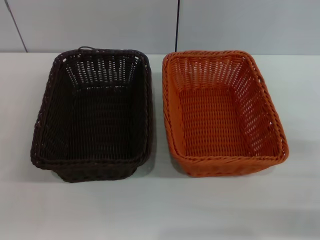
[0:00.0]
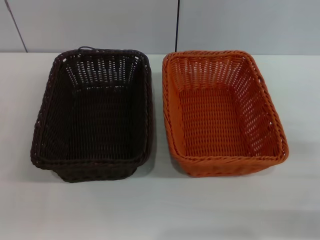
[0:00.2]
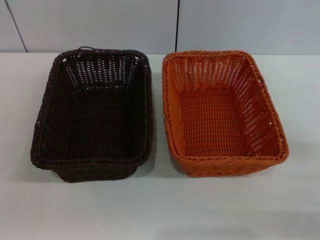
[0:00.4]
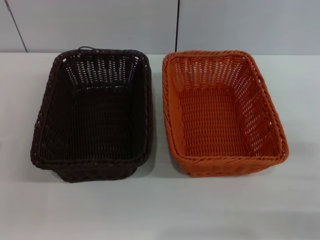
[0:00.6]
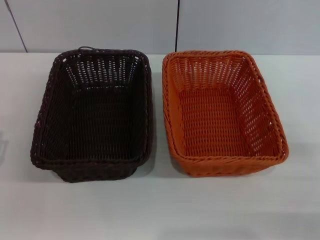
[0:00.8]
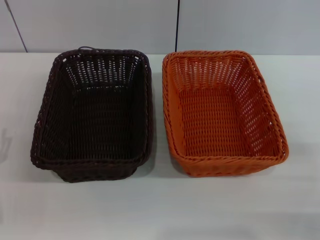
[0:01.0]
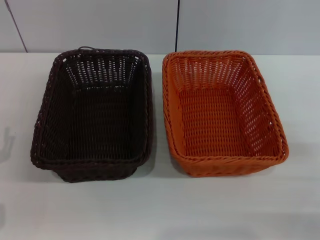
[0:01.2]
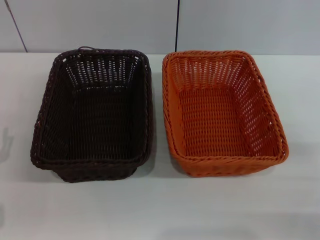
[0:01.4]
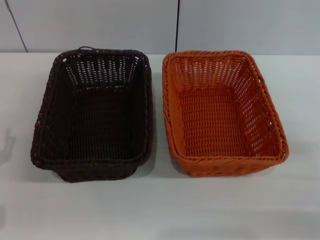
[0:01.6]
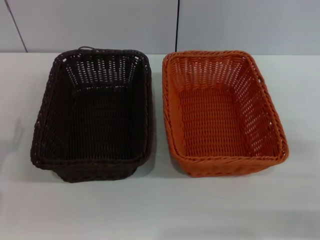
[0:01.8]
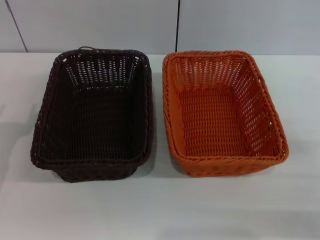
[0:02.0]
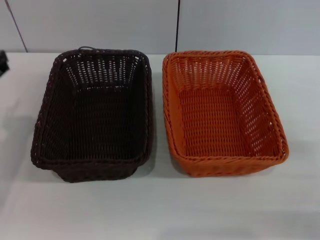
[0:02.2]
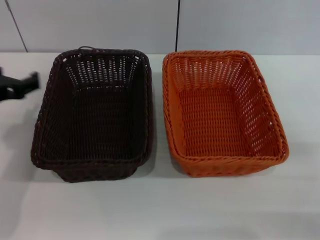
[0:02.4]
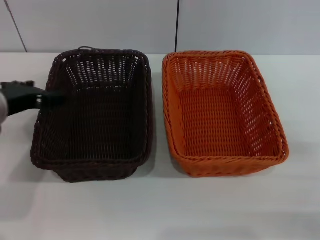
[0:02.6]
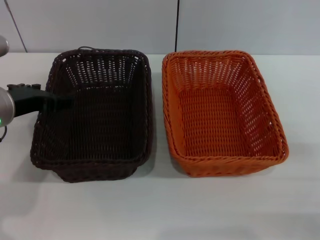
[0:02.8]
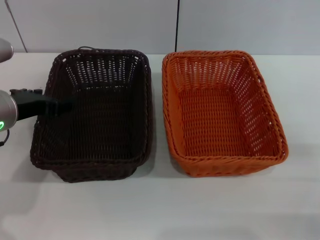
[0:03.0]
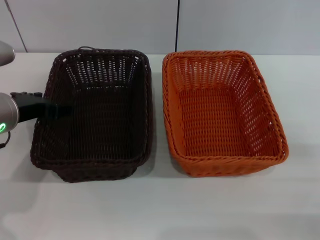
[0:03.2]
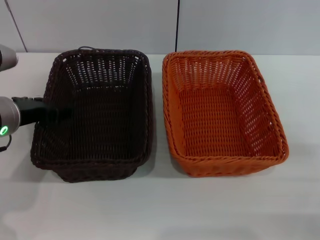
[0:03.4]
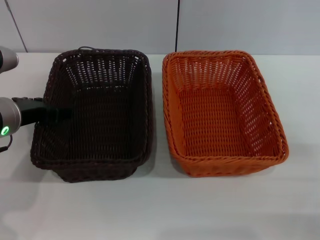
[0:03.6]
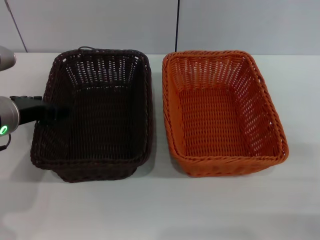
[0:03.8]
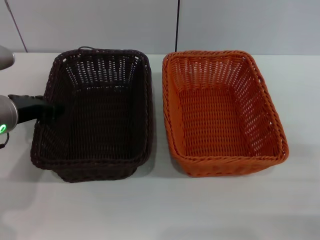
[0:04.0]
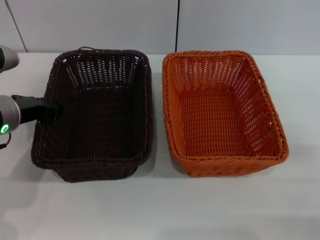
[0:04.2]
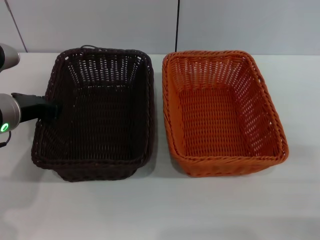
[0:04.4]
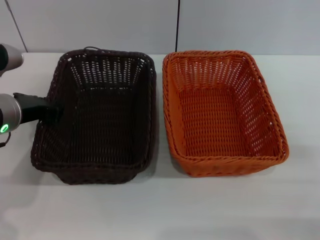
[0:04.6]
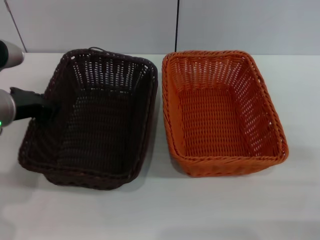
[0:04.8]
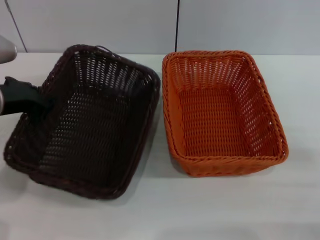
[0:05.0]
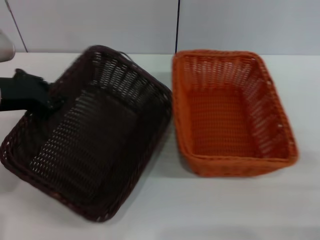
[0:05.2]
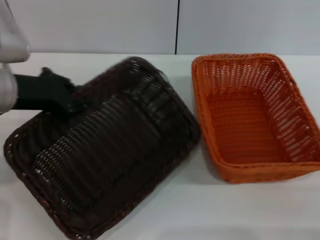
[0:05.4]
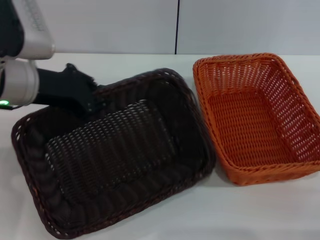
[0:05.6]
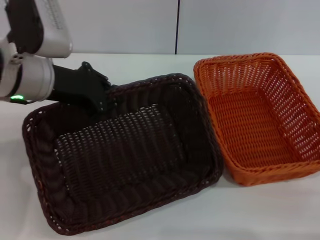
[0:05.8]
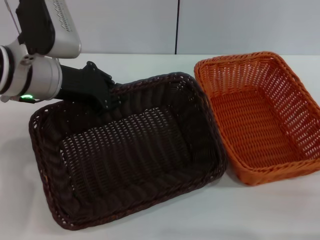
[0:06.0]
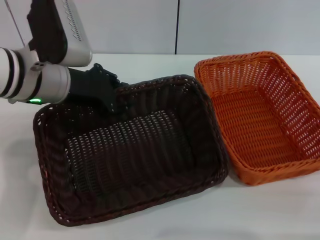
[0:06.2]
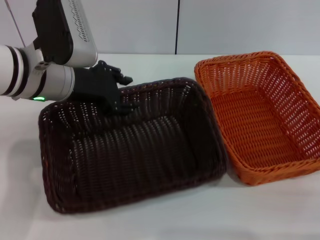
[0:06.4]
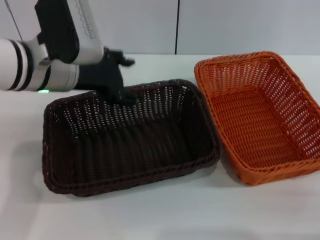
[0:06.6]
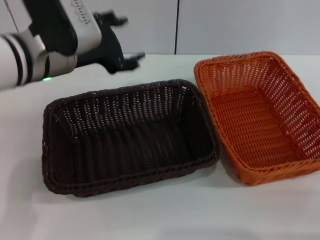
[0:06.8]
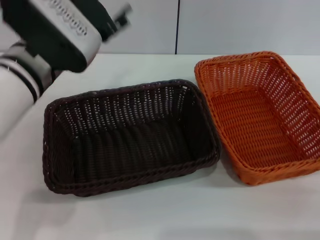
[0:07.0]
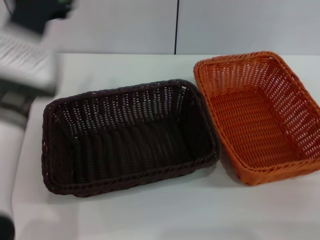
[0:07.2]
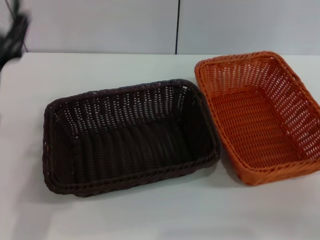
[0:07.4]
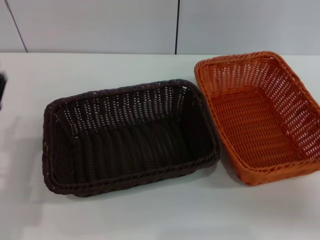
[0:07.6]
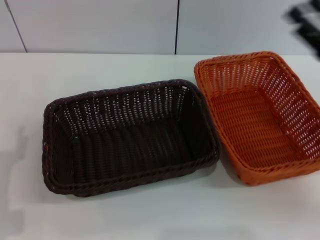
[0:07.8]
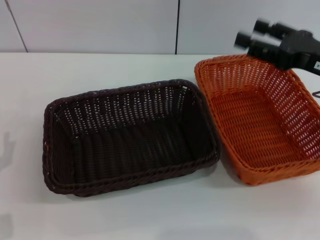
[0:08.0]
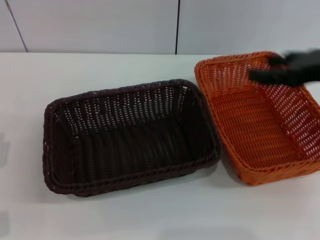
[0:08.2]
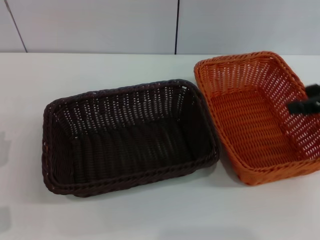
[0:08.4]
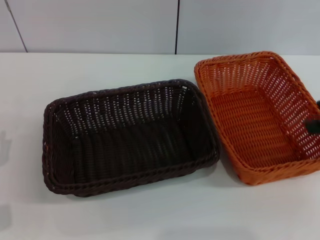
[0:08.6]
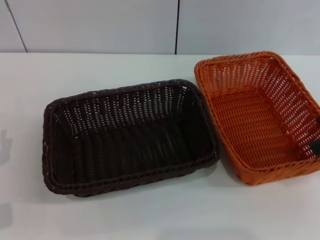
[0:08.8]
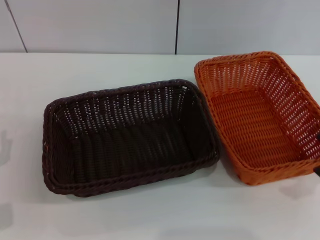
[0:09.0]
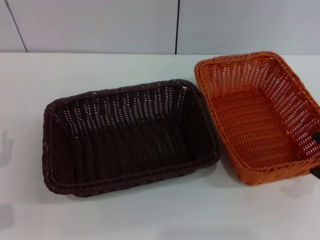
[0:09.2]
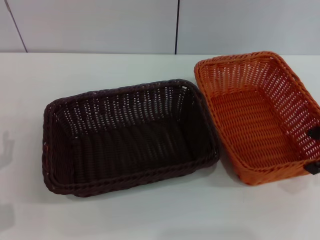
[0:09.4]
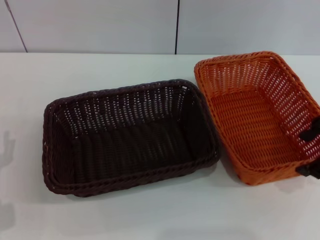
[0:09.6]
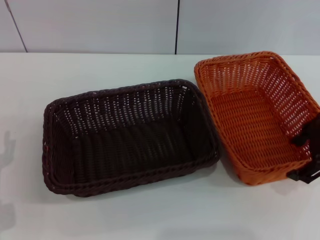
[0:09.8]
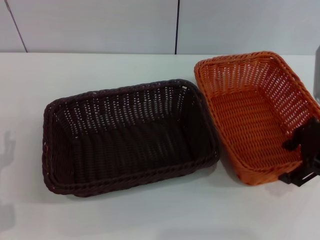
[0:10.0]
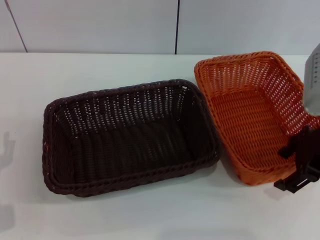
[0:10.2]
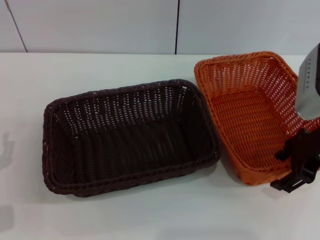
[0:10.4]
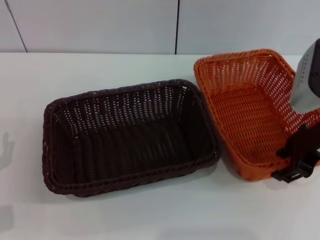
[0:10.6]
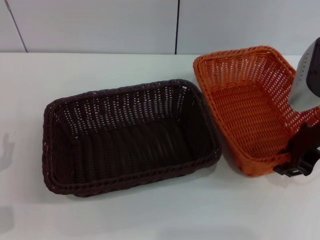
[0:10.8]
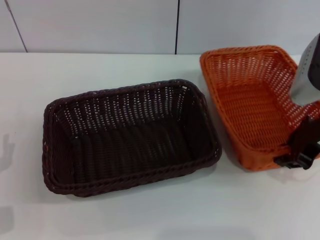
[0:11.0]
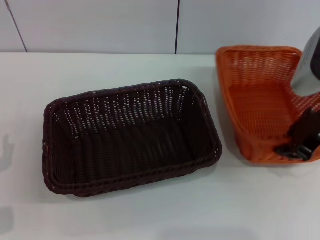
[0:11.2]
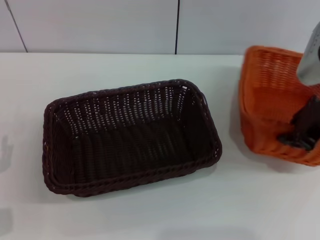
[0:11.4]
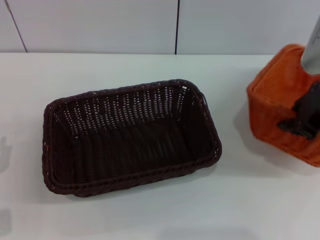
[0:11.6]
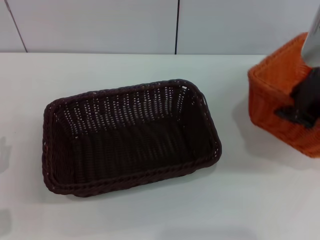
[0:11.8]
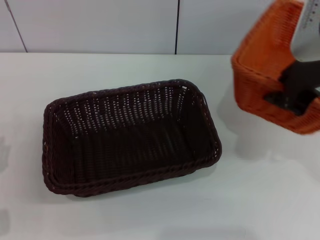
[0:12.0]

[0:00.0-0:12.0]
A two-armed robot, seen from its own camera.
Step, 0.0 to 5.0 s: Pick up the dark basket with the left gripper.
Step, 5.2 to 6.4 s: Place the dark basket in the center of view with the left gripper.
Step, 6.6 to 11.2 s: Pick up the light basket with the right gripper.
1.6 to 3.0 s: The left gripper travels upward, forward and to the right by approximately 20 cm.
3.0 to 4.4 s: The left gripper closes.
4.4 to 6.0 s: The left gripper moves upward, approximately 5 cm.
6.0 to 7.6 s: The left gripper goes approximately 20 cm backward, downward and to the left, and opens its fingers. The right gripper moves forward and upward, some 10 cm.
7.6 to 9.0 s: The right gripper shifts about 15 cm upward.
9.0 to 10.4 s: The right gripper shifts approximately 10 cm downward and to the left.
10.4 to 12.0 s: The right gripper heads upward, covering roughly 10 cm, and closes up.

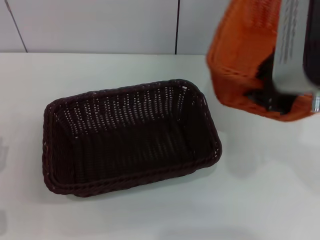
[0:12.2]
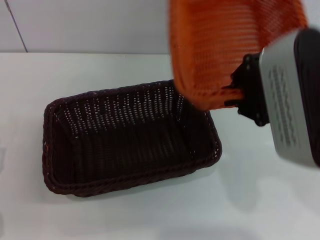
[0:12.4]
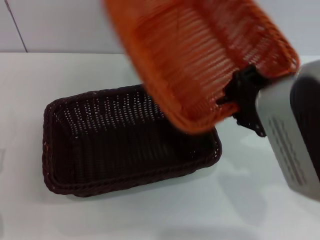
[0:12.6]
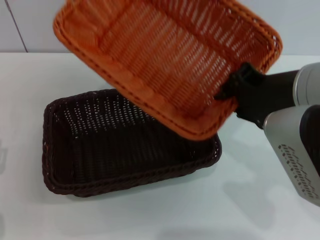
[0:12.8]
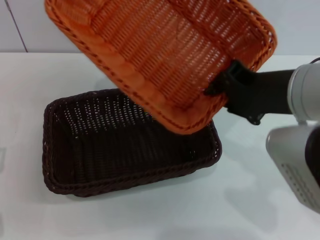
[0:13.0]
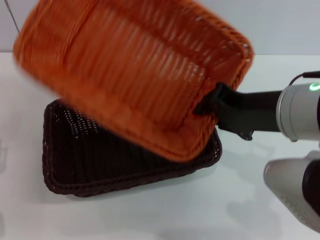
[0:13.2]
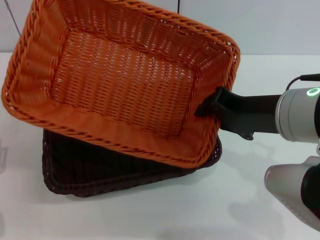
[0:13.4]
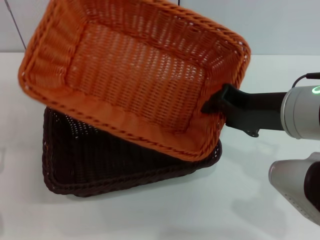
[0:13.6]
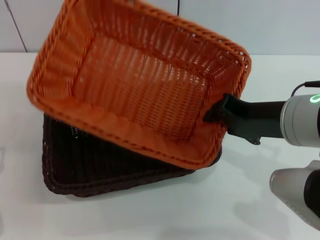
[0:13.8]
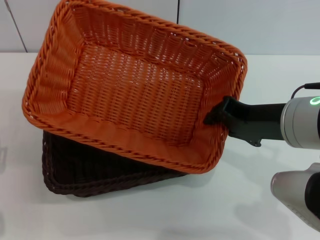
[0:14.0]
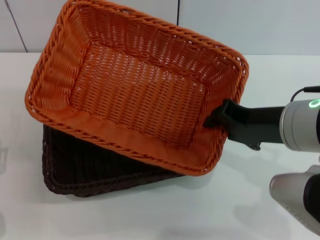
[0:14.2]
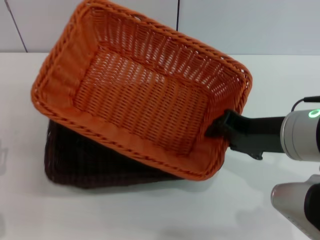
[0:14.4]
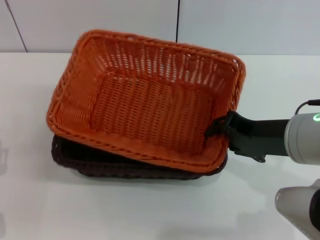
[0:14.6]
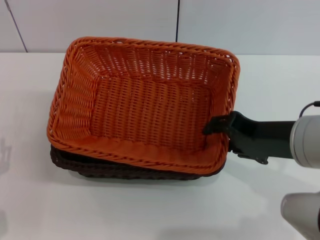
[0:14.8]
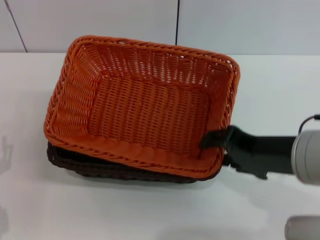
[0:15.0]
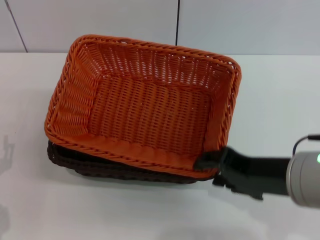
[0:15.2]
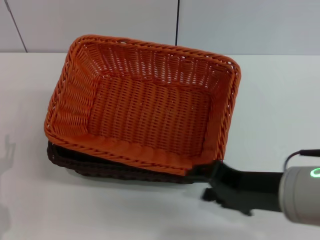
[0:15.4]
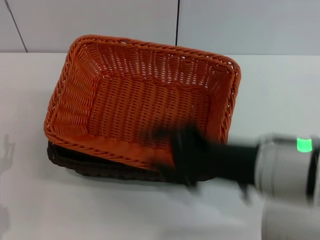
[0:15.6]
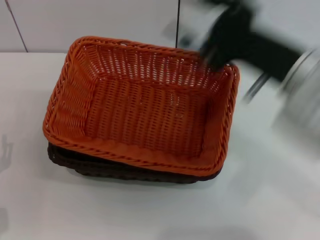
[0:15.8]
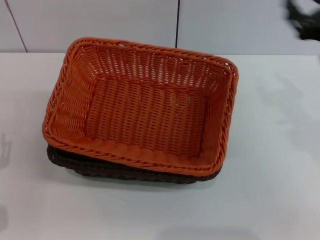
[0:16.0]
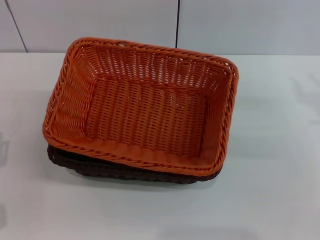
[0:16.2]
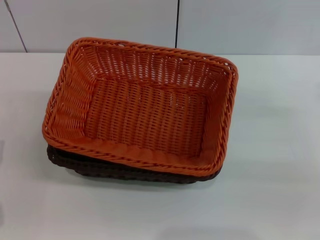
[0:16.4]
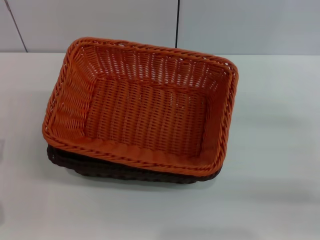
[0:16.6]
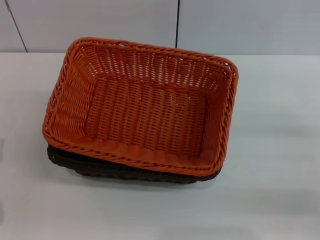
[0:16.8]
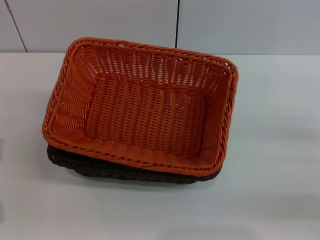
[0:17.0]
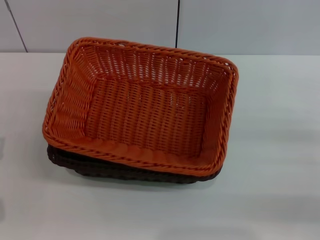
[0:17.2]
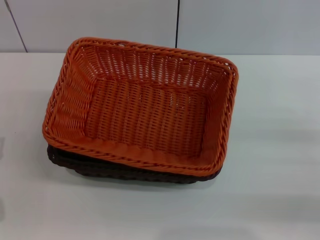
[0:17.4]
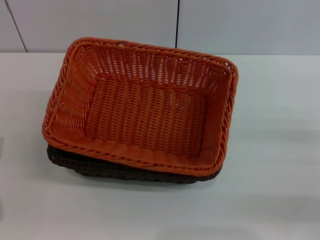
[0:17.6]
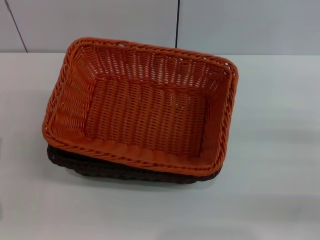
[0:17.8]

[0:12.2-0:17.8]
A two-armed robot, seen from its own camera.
Step, 12.2 to 15.0 s: Place the light basket on the dark basket with the right gripper.
12.2 to 13.6 s: The right gripper is displaced downward by approximately 5 cm.
13.6 to 15.0 s: The right gripper opens up.
15.0 to 16.4 s: The right gripper moves to the right and downward, some 20 cm.
16.4 to 17.8 s: The right gripper ends up some 5 cm from where it was.

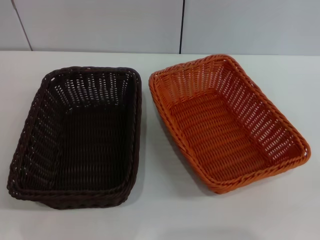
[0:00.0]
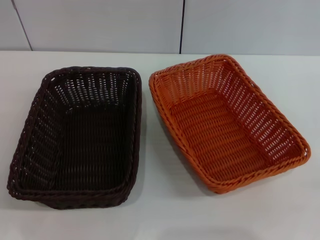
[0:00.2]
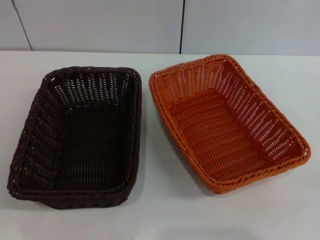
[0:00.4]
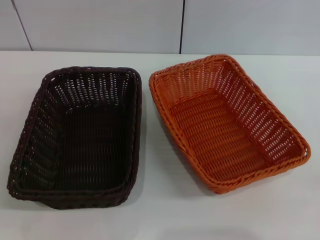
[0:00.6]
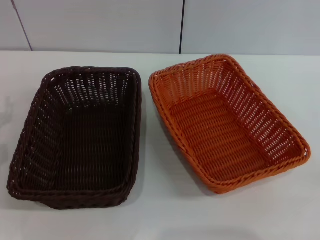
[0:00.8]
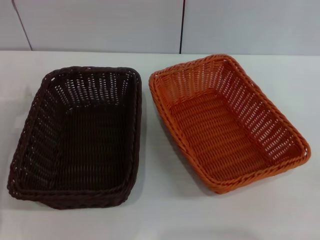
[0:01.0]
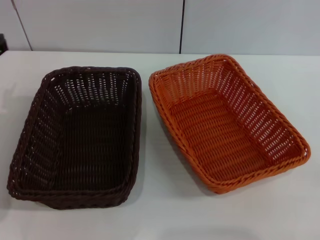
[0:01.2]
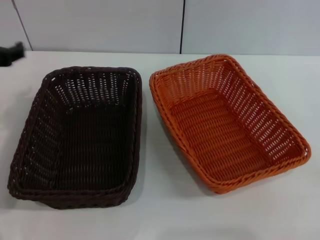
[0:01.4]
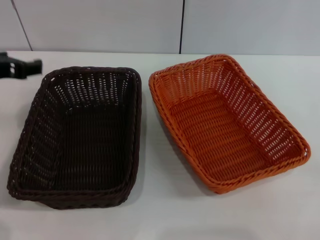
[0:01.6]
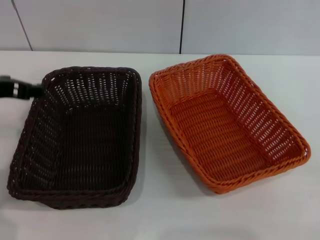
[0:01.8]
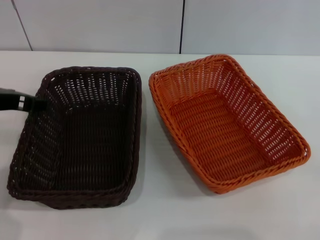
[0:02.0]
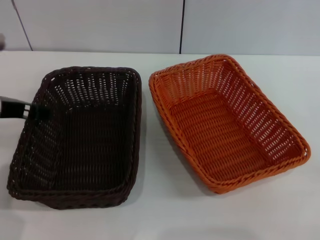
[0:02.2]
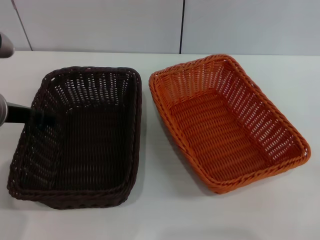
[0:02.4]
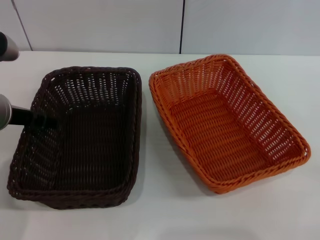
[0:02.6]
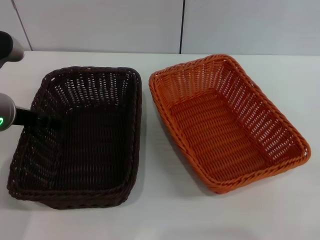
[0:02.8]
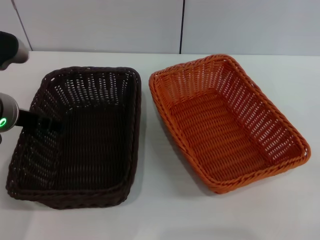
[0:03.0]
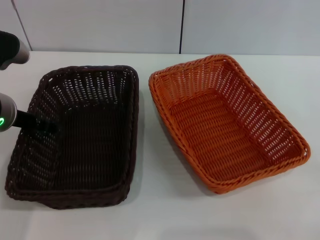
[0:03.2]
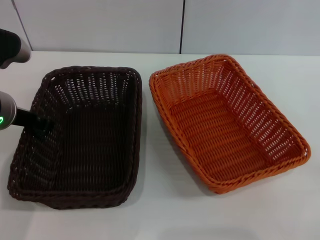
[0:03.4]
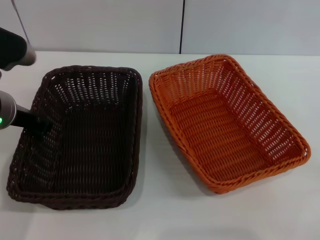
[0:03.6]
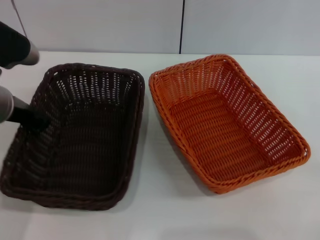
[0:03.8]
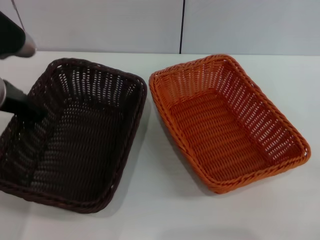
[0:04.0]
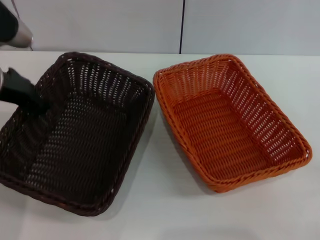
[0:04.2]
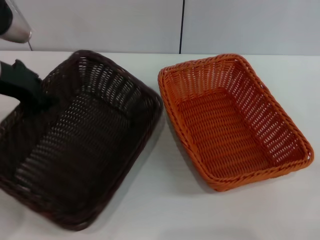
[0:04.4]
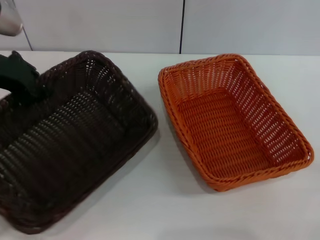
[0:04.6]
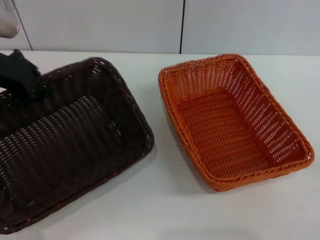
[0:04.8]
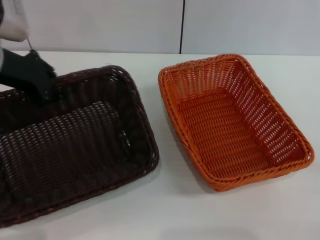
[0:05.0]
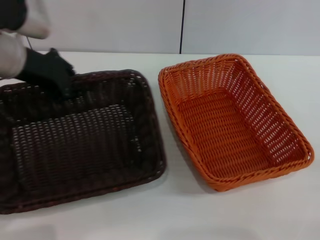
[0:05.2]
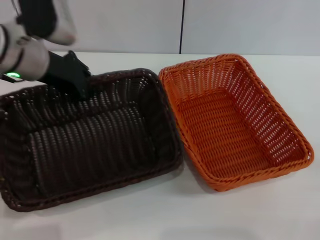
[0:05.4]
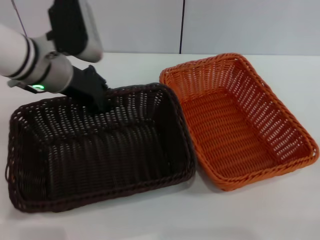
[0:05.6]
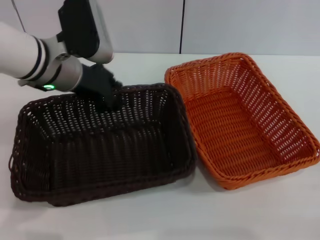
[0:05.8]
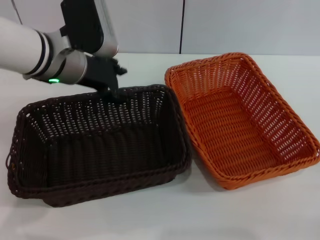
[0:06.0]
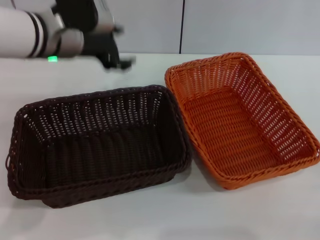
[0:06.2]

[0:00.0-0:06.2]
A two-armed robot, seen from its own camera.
Step, 0.0 to 4.0 s: Pick up the dark basket with the left gripper.
Step, 4.2 to 6.0 s: Place the dark basket in the center of view with the left gripper.
0.0 to 1.6 s: The left gripper goes about 25 cm upward, to the right and forward.
1.6 to 3.2 s: The left gripper moves downward, some 5 cm.
3.2 to 4.6 s: The left gripper moves upward, roughly 5 cm, and closes its fingers.
4.6 to 6.2 s: The left gripper is displaced to the right by some 10 cm, and opens.
